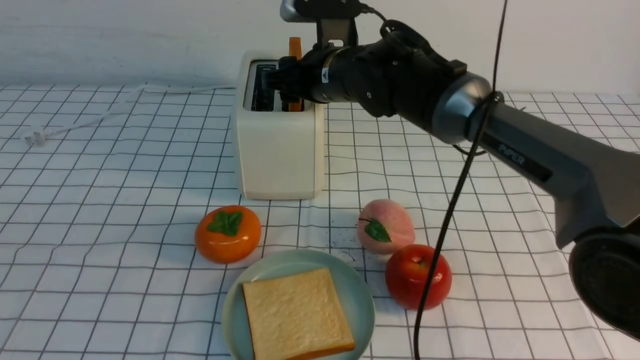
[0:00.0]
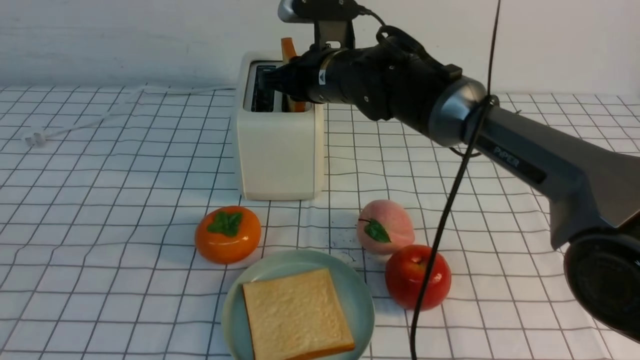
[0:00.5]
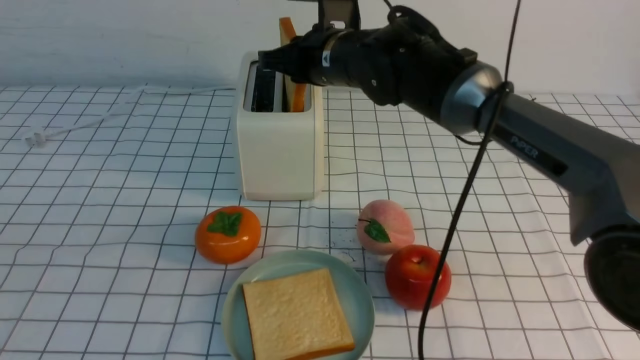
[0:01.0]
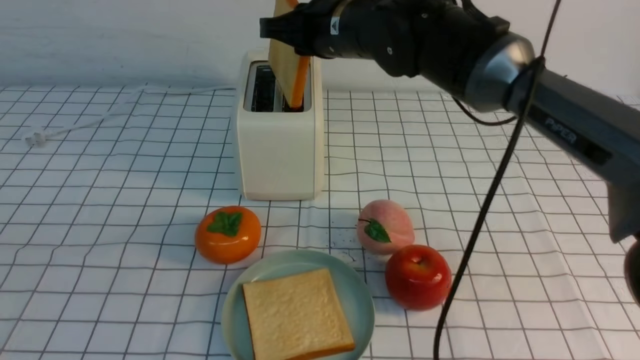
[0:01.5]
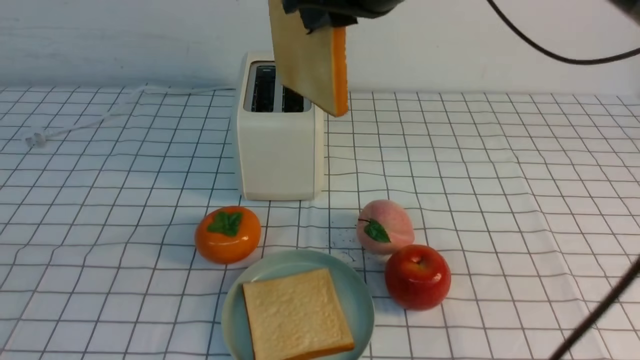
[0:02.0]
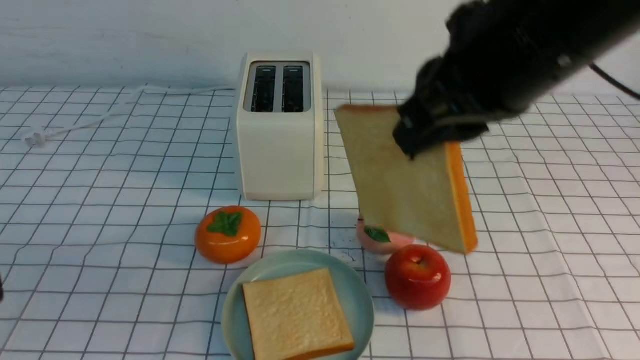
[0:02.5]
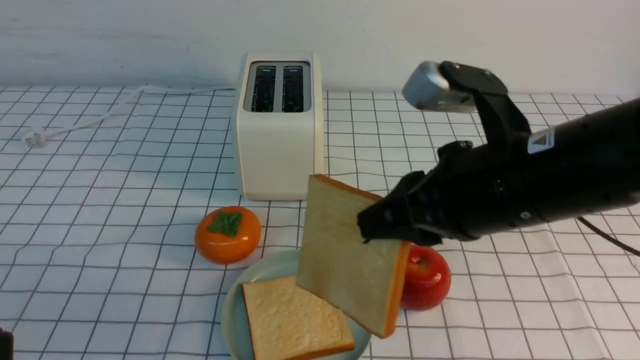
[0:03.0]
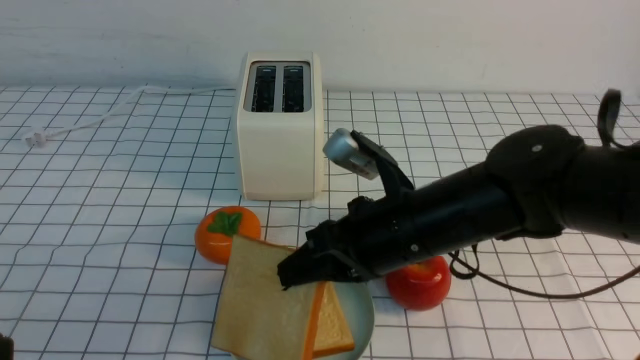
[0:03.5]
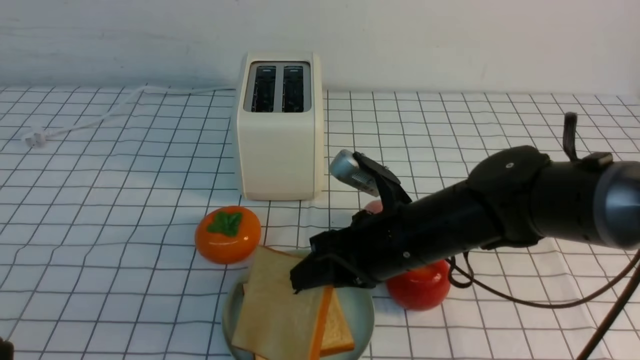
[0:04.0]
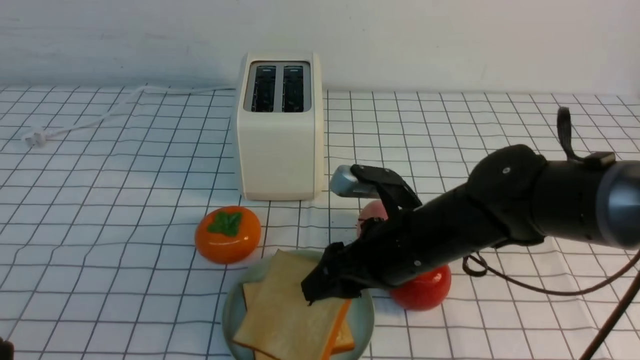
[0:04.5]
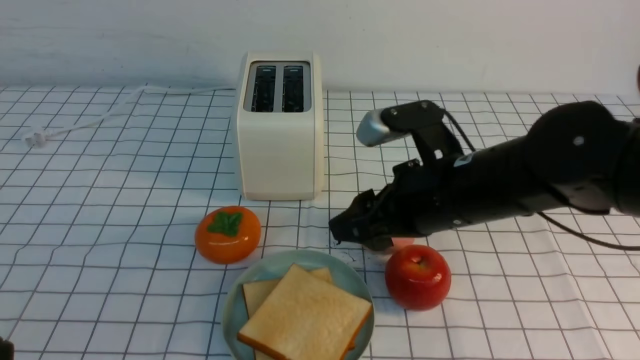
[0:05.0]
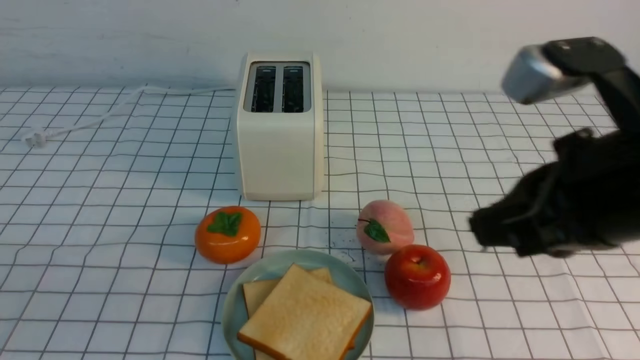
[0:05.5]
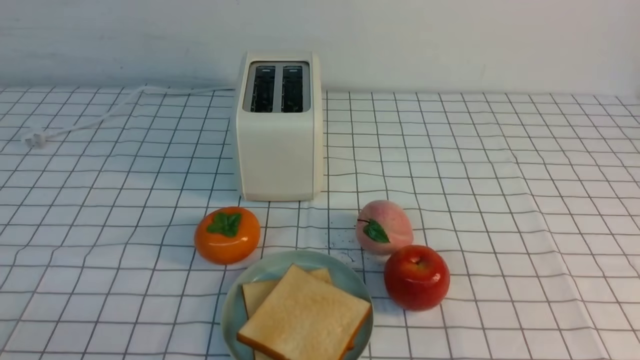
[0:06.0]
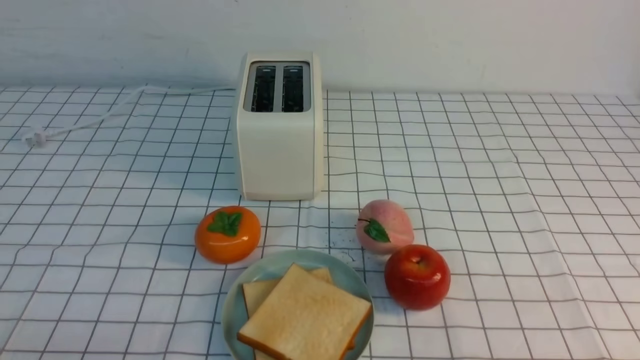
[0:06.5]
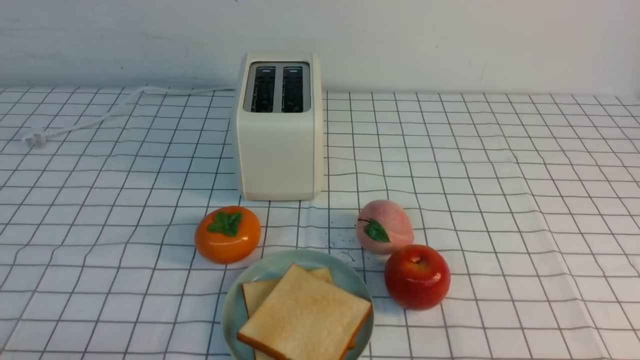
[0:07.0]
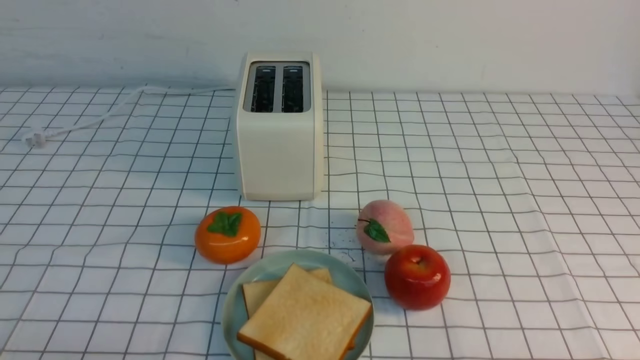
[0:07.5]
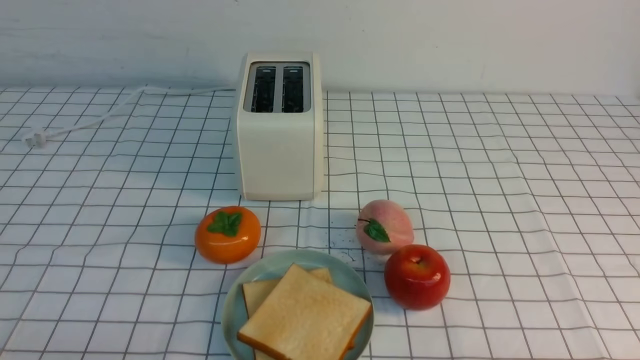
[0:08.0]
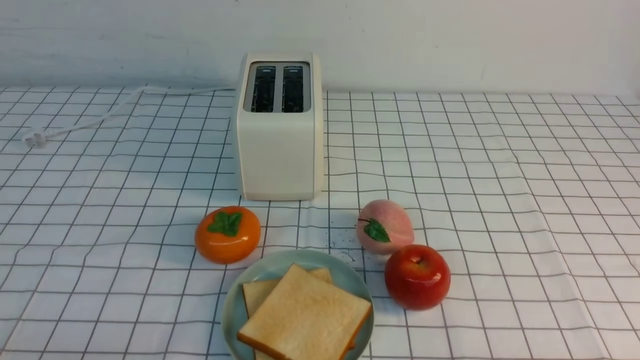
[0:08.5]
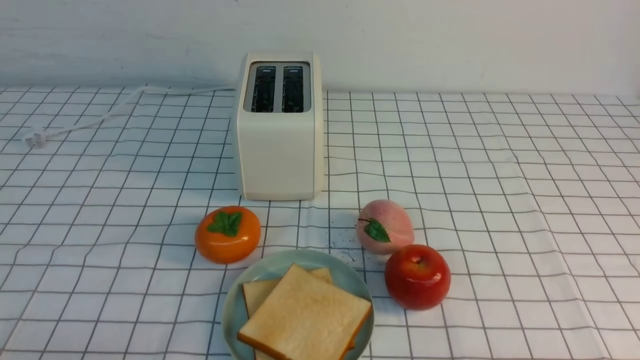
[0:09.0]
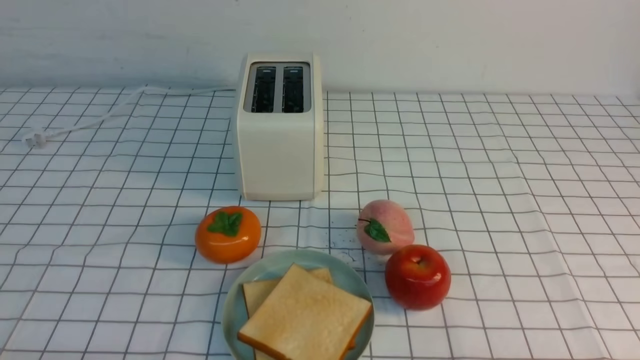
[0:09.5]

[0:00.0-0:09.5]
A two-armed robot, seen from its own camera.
Task of the whole recording: take toasted bread from bread machine on white checkered table place on plate.
Step, 0:02.0 to 0:04.5: use the right arm to put a slice of bread into the plate.
0:00.0 to 0:02.0: The right gripper heads upward and backward, covering about 20 cm, and closes up.
0:02.0 to 0:04.0: The right gripper shifts roughly 25 cm downward.
0:04.0 to 0:05.5: The right gripper goes approximately 25 cm upward, backward and to the right, and closes.
0:05.5 to 0:07.5: The right gripper travels downward, to the right and backward by approximately 25 cm.

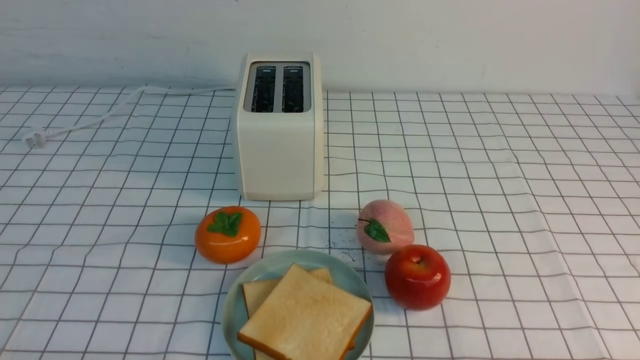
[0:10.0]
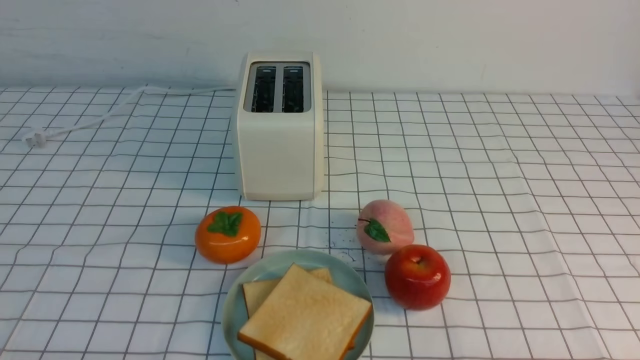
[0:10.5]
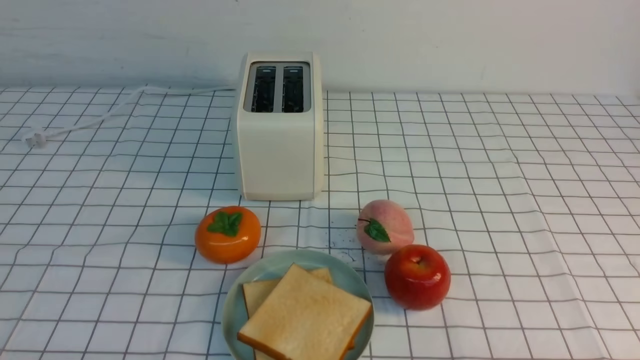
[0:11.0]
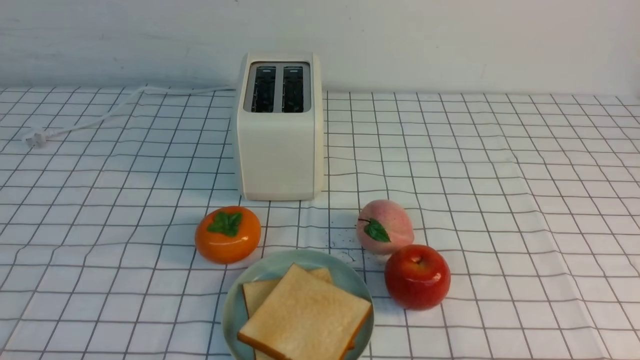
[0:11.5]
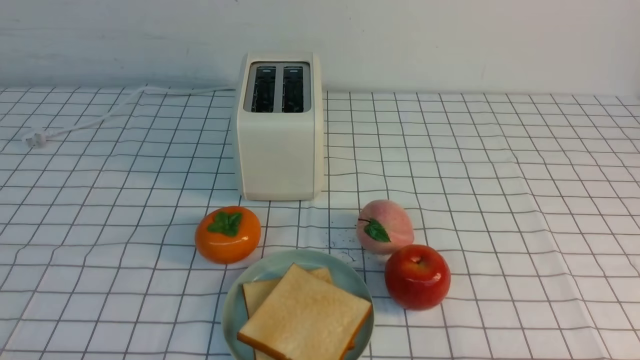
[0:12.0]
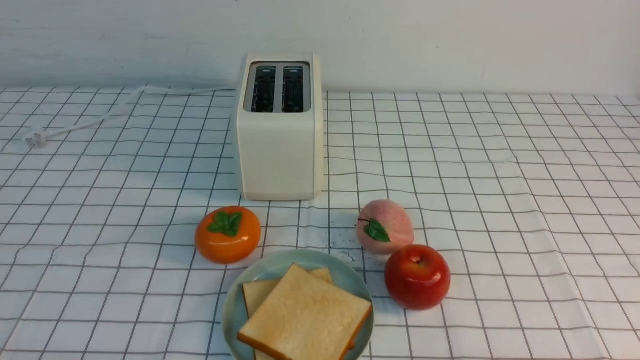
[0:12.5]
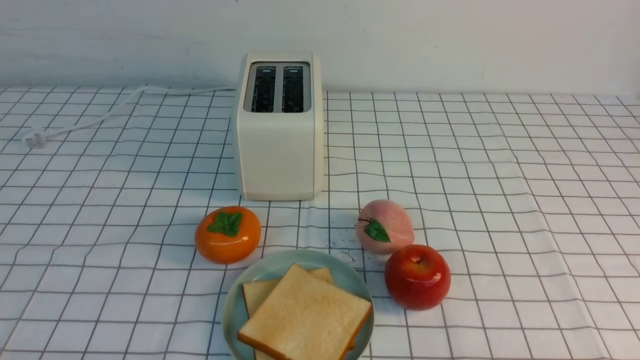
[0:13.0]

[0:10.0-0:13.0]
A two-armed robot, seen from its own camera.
Task of the whole recording: take toasted bread from bread machine on white checkered table place on plate.
0:10.0 to 0:13.0: Both grippers stay about where they are.

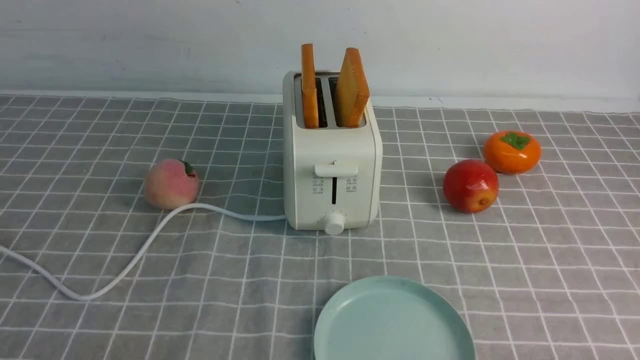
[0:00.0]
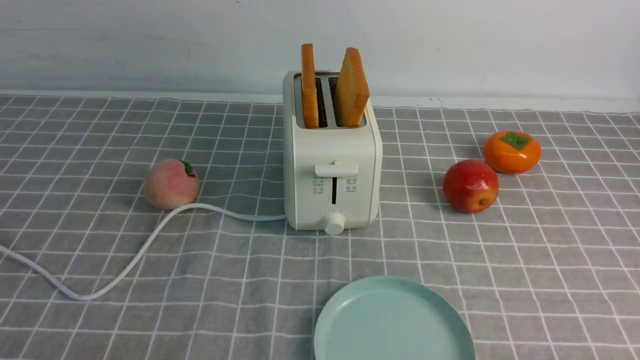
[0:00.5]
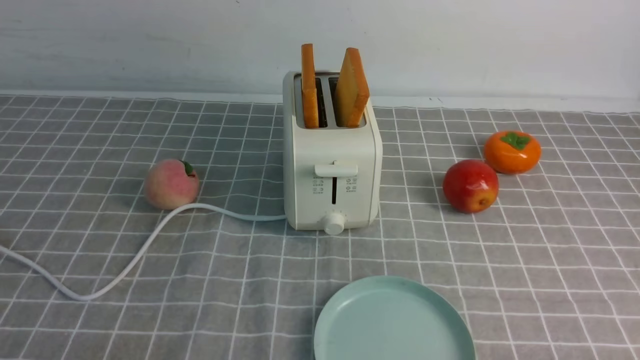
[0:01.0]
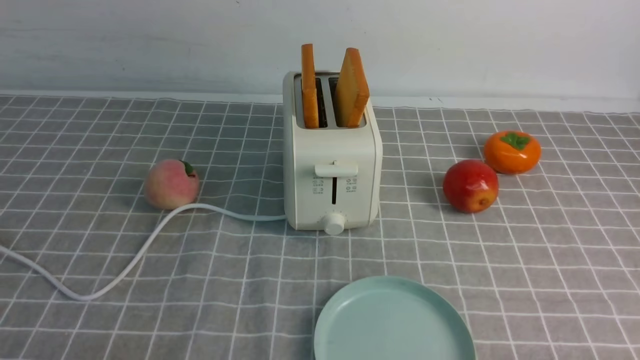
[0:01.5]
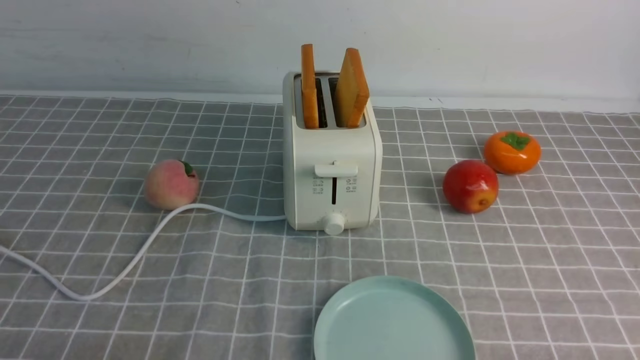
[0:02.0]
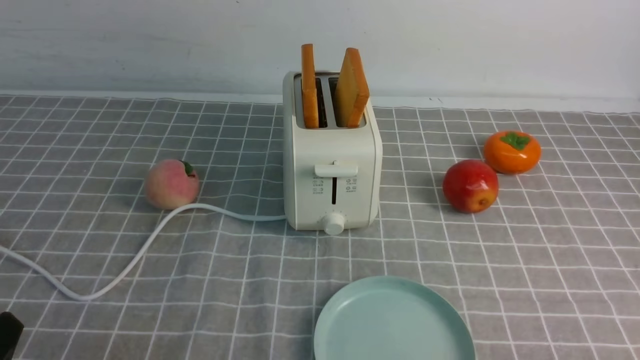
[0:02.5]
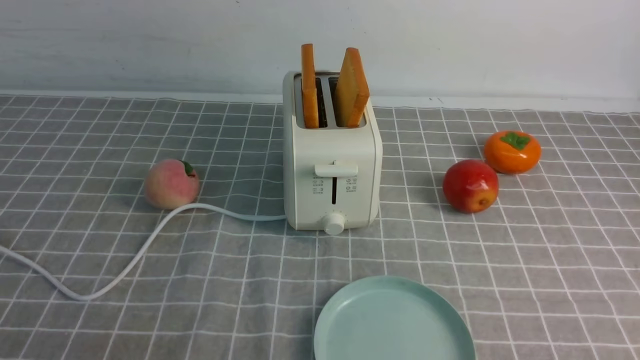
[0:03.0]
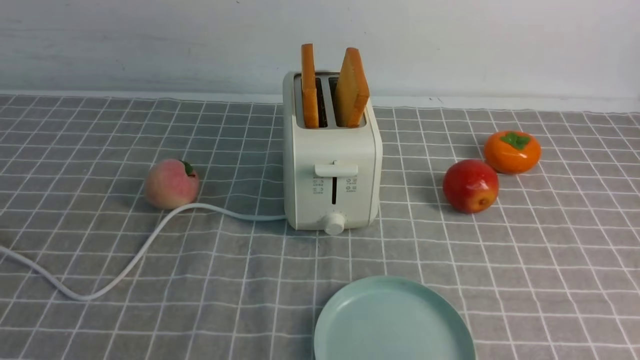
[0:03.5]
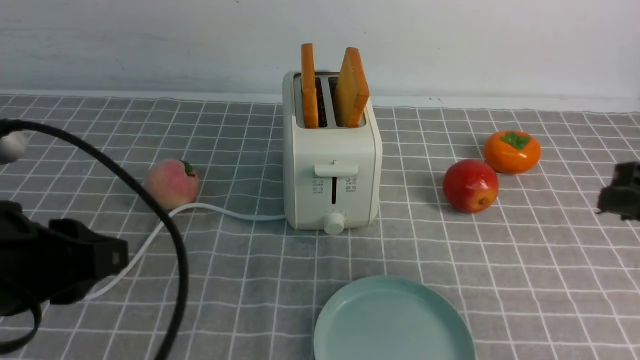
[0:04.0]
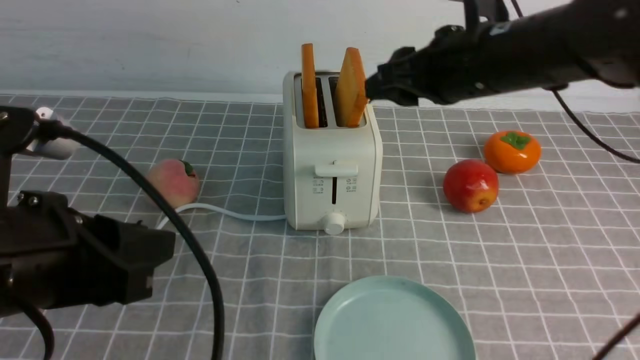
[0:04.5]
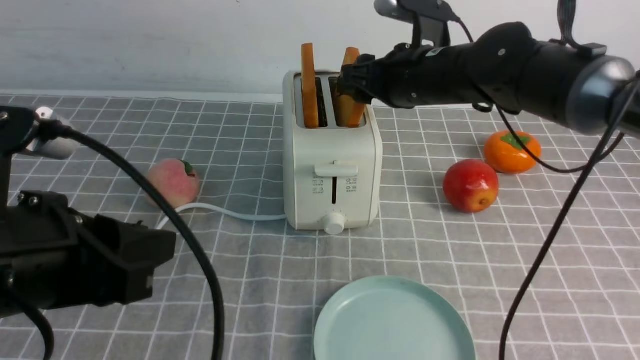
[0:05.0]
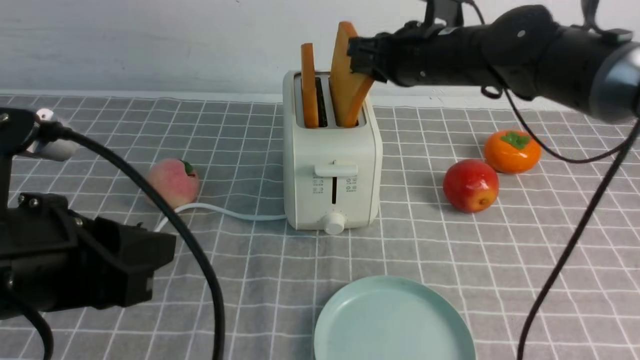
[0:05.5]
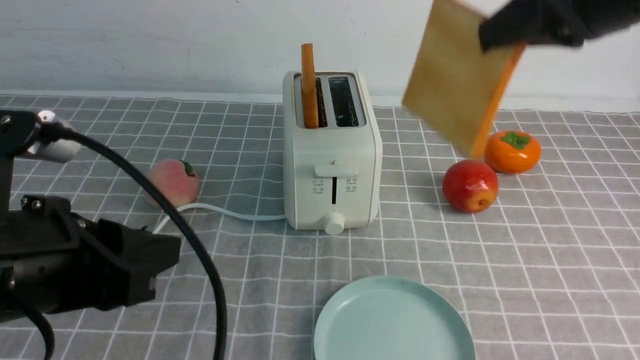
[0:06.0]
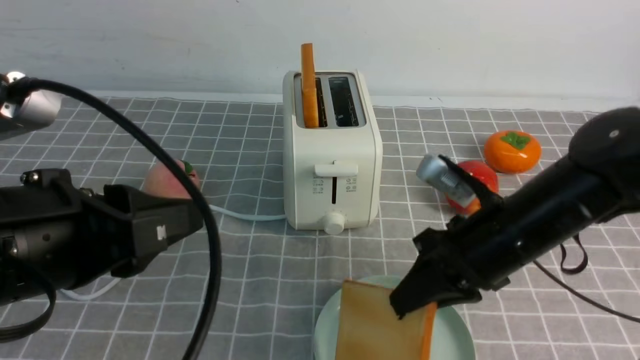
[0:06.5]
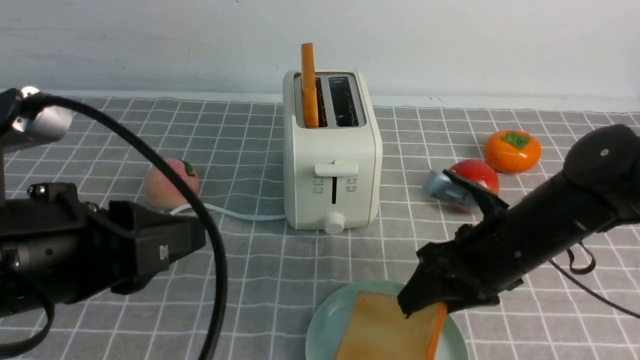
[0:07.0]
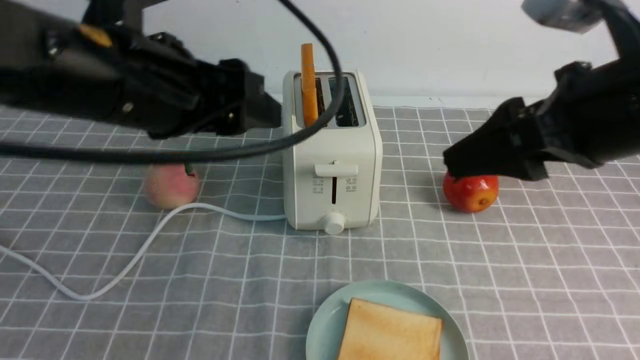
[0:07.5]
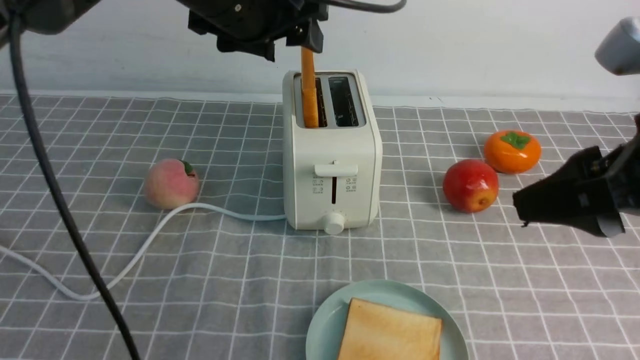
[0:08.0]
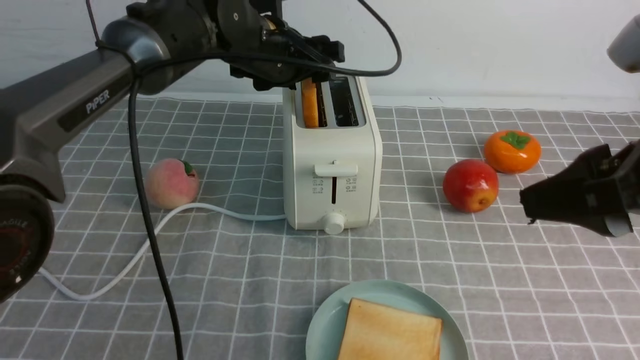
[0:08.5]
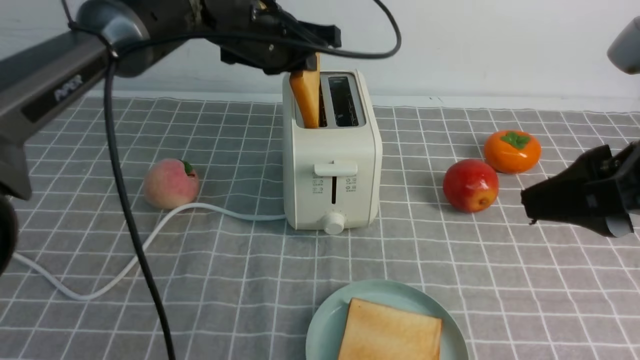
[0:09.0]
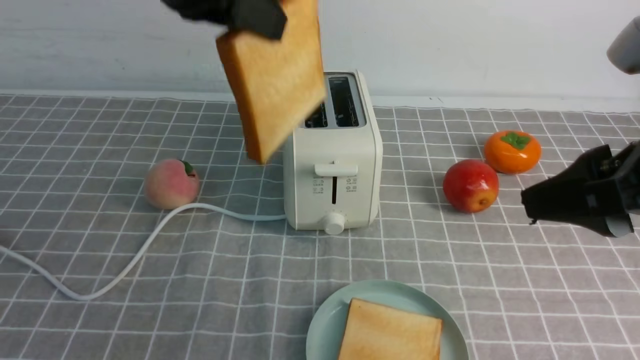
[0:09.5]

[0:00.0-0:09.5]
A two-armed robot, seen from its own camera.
Task of the whole recording: take toasted bread from bread machine on grey coffee table place on plate.
Step, 0:00.0 to 0:05.5: use the right arm to take out a slice of bread.
Step, 0:06.0 to 0:07.0: use the right arm to put a slice of bread into the plate.
Step, 0:07.5 to 0:09.0: use the left arm to take out a slice of bread.
0:02.0 to 0:04.0: The right gripper goes approximately 25 cm forward and upward; the left gripper moves upward and forward, some 20 cm.
0:04.0 to 0:05.5: The right gripper is displaced forward and to the left by some 25 cm.
0:05.5 to 0:07.5: The right gripper goes approximately 20 cm backward, and opens. The left gripper travels forward, upward and to the right by roughly 15 cm, and opens up.
0:07.5 to 0:09.5: The right gripper is displaced backward by approximately 5 cm; the left gripper reaches some 20 cm forward, then returns, and closes.
